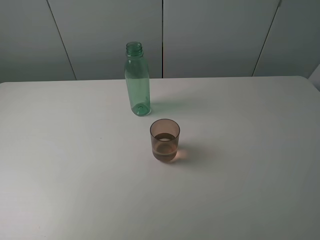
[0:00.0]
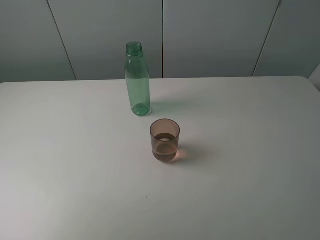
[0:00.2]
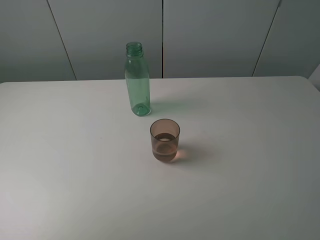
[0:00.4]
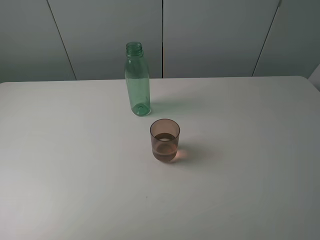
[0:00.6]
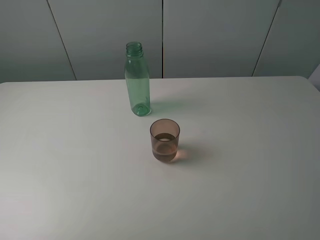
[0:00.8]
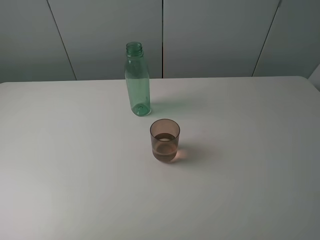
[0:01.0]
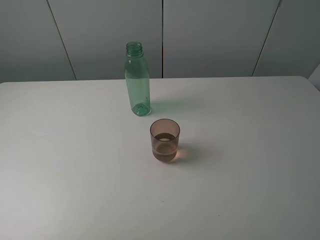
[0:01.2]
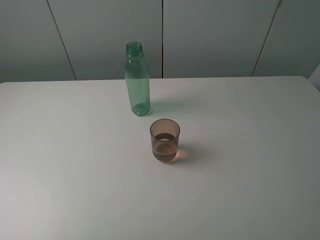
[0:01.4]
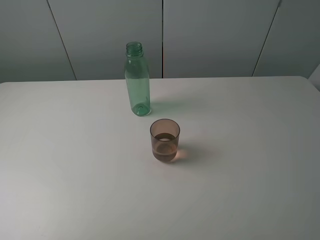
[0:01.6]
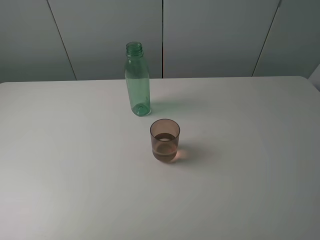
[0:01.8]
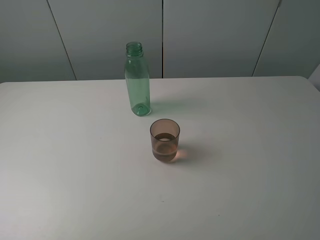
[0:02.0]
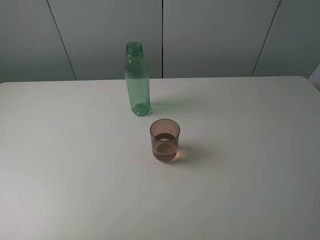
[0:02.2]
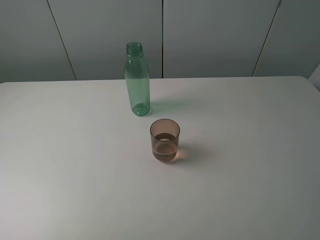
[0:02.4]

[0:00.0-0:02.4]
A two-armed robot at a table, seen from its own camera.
Task of the whole recording: pick up the bottle filled with water and pour it into the pink cup.
0:01.2 to 0:02.4: Neither gripper changes place.
